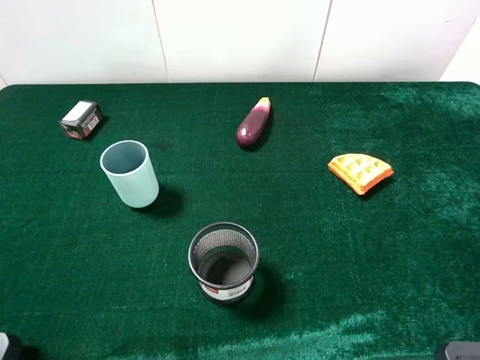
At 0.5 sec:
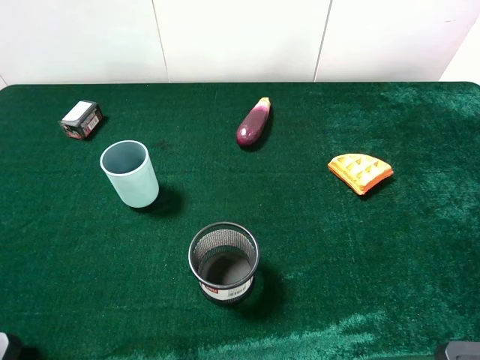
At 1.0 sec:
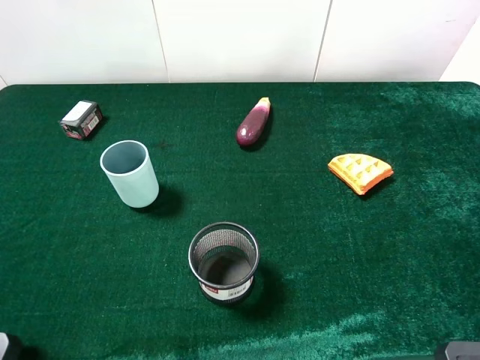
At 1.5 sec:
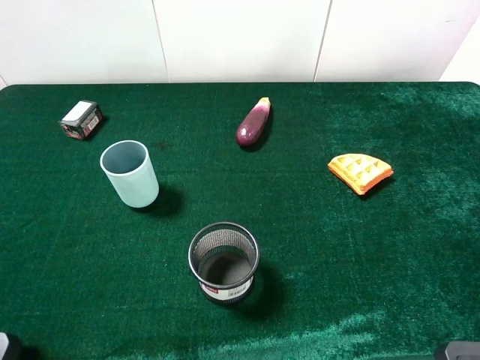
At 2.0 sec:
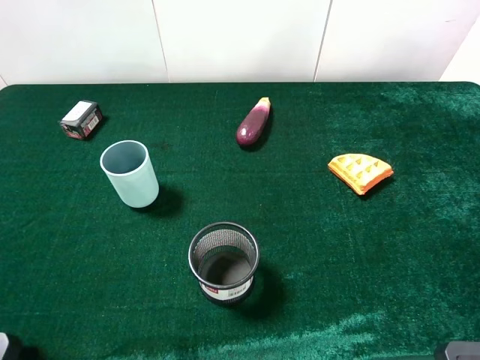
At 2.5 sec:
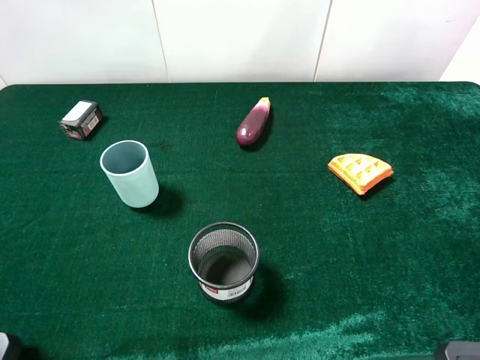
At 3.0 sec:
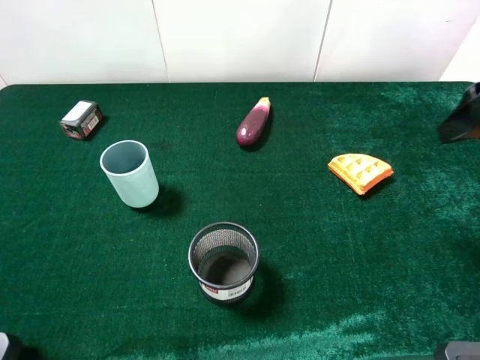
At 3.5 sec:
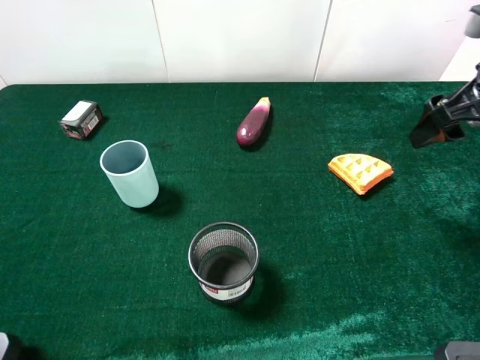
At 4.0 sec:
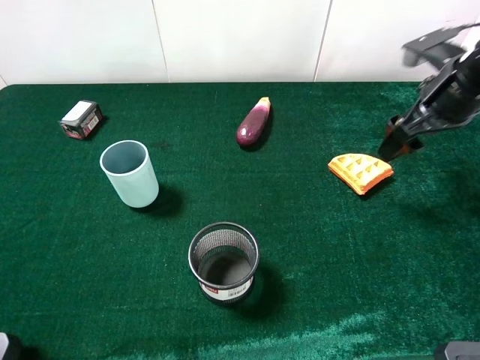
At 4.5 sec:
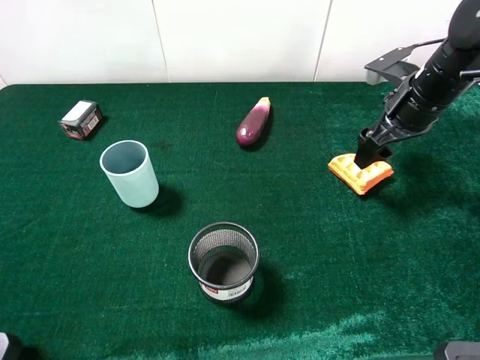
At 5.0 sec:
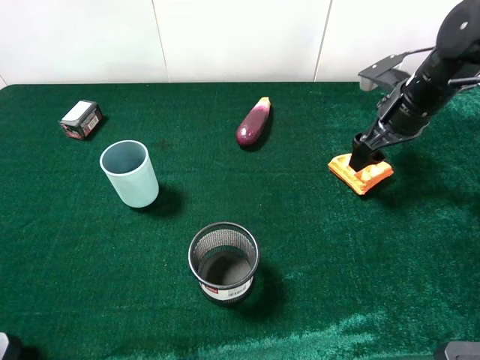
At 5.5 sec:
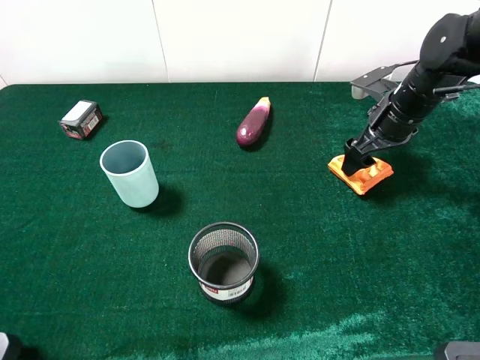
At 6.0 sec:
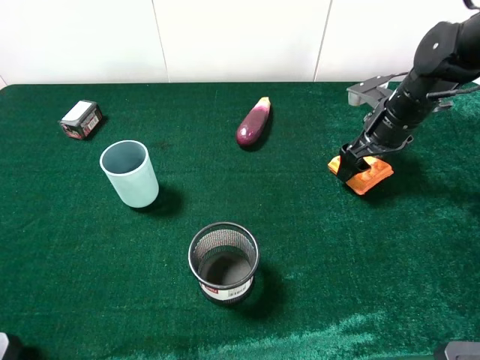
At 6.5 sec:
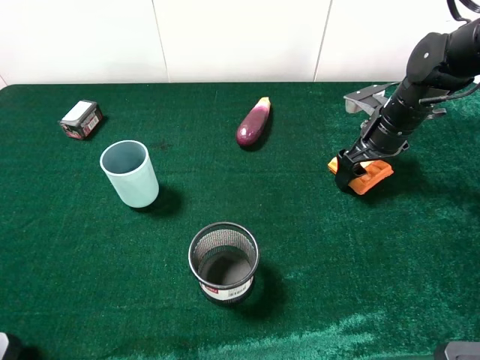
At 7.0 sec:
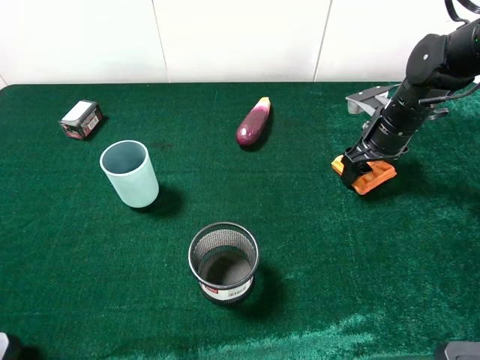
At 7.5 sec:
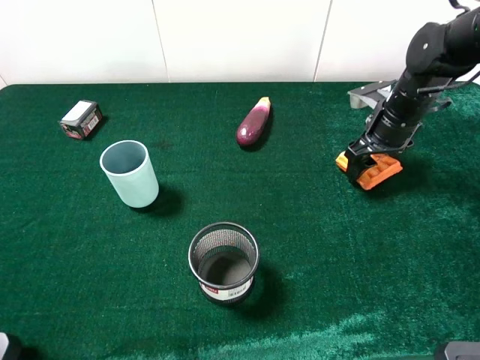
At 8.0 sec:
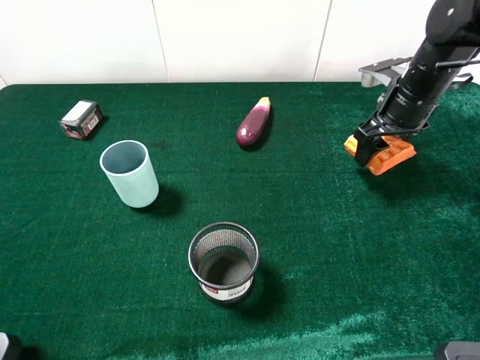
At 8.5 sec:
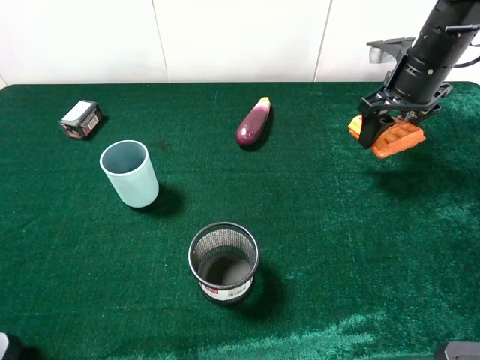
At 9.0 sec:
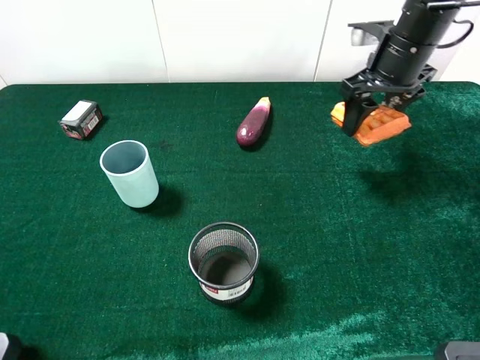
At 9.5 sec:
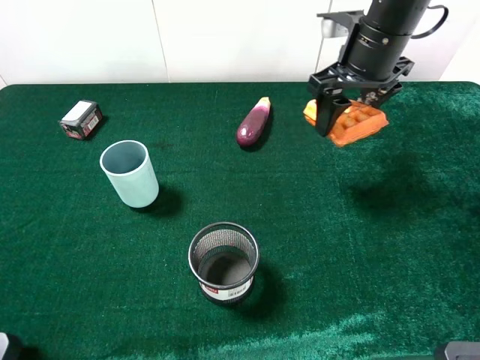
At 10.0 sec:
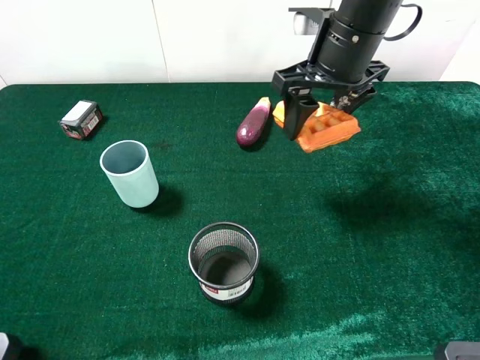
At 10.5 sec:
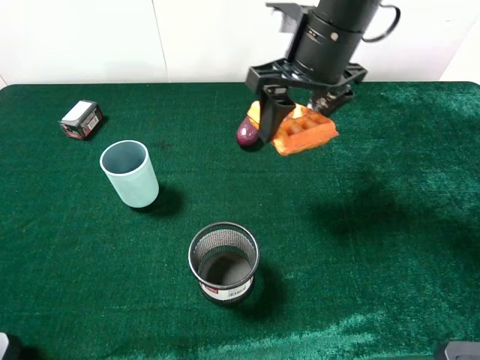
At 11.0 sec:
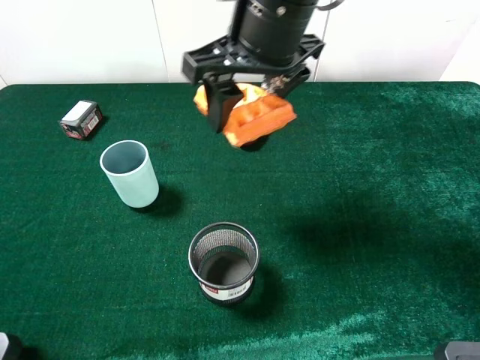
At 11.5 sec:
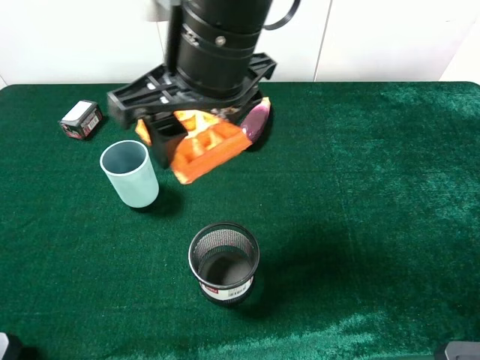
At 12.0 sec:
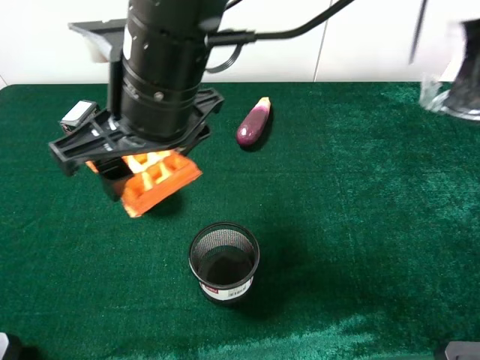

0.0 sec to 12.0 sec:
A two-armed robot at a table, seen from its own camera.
Task of the whole recording: the gripper move the object.
Step, 0.0 sec to 7.0 sec: Grasp the wallfe with the right gripper.
2.0 sec to 4.0 sec: The right gripper heads forward and downward, covering some 25 cm.
4.0 sec to 6.0 sec: The right gripper travels downward by about 10 cm.
6.0 sec to 8.0 sec: The right gripper closes up.
8.0 sec to 10.0 sec: The right gripper goes about 15 cm to the left and upward.
10.0 sec to 12.0 sec: The right gripper moves to the left and backward, roughly 20 cm.

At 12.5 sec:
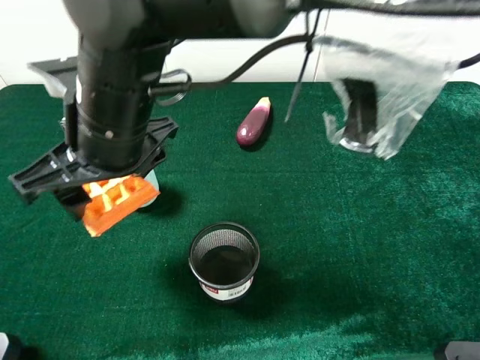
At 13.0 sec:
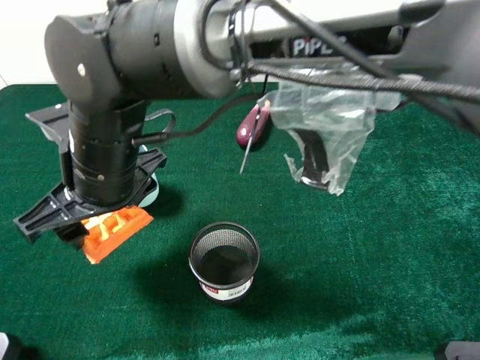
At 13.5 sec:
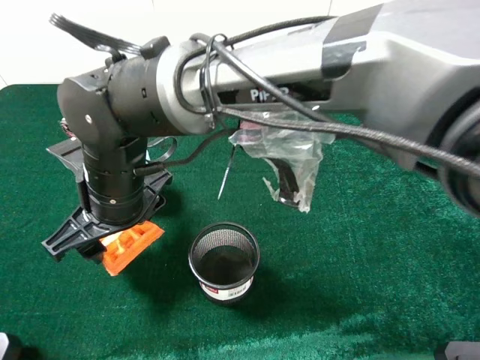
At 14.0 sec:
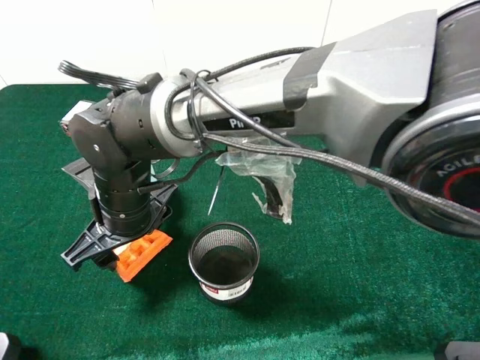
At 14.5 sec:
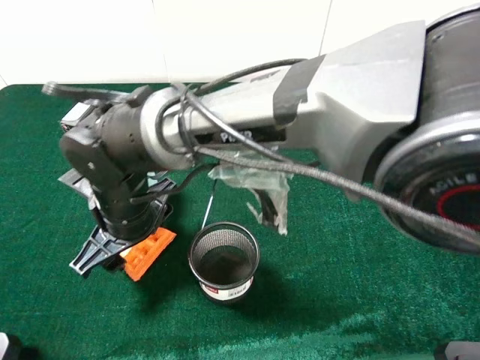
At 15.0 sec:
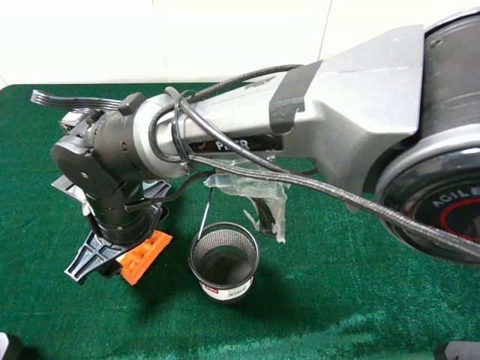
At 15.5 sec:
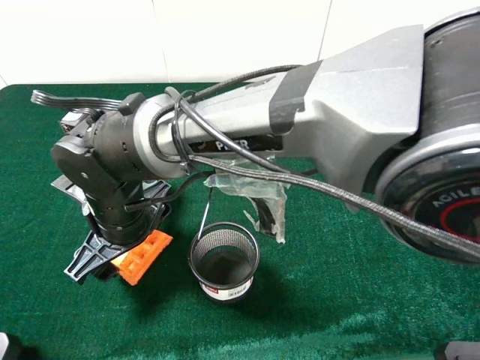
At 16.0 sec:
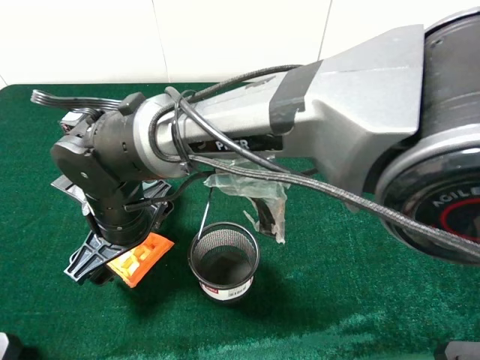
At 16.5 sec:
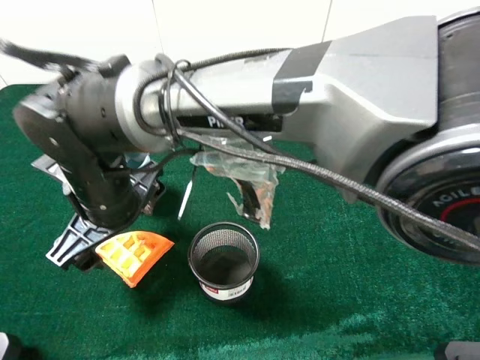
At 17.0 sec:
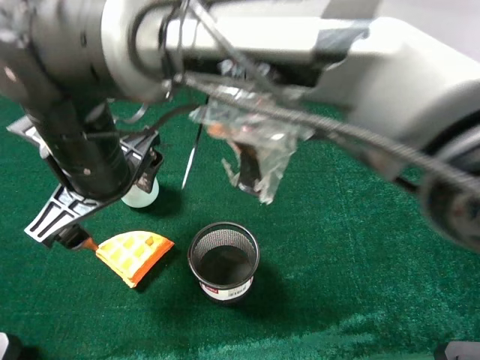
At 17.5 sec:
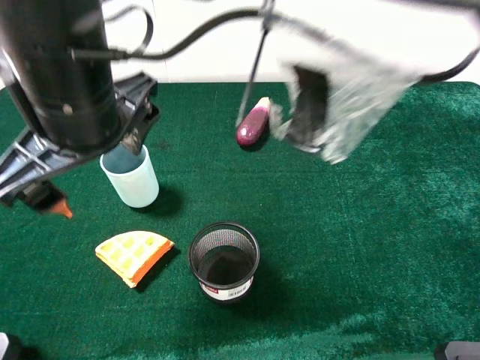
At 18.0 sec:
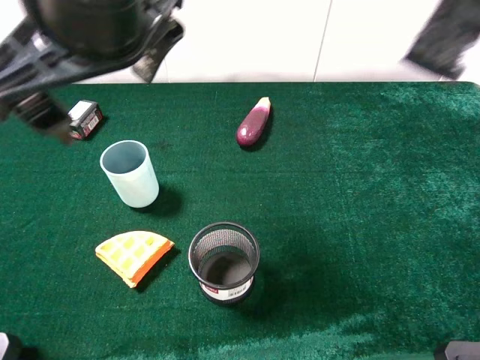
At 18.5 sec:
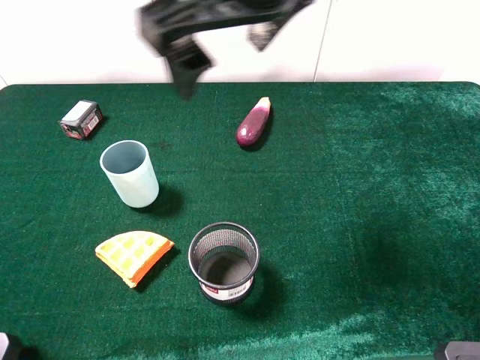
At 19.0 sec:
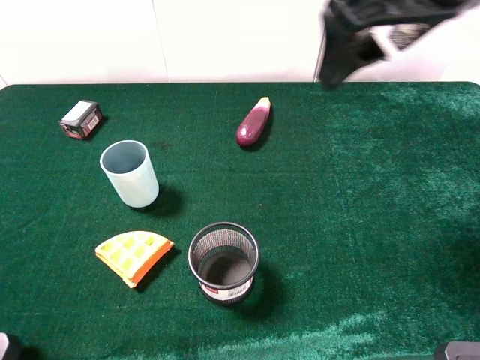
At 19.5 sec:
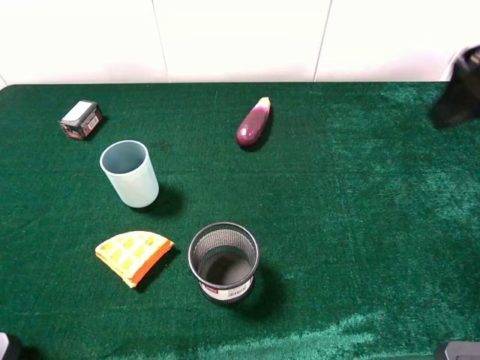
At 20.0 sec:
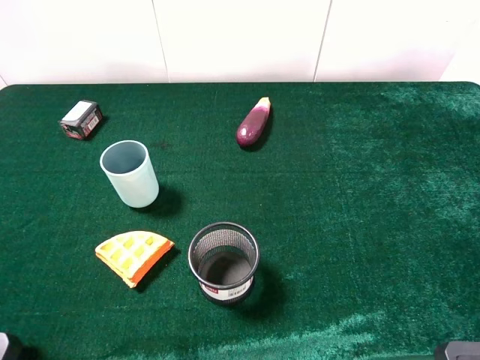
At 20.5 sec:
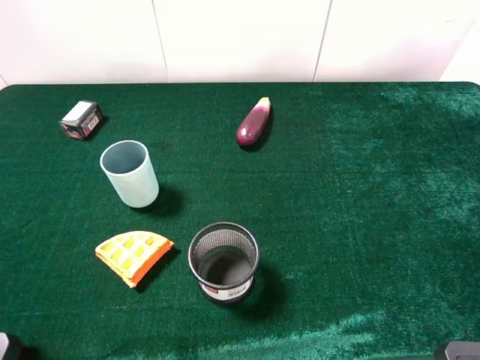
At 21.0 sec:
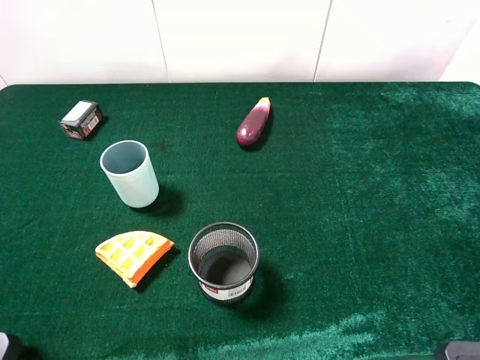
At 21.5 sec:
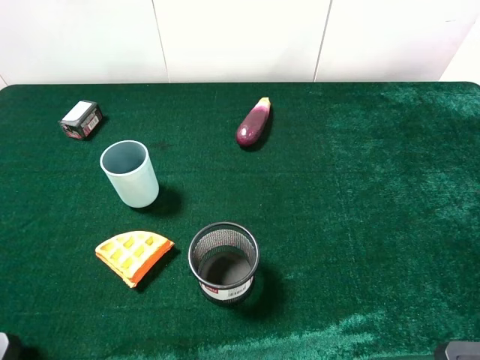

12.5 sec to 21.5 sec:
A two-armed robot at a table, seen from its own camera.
Task of the whole recording: the gripper move the object.
Step, 12.5 sec to 16.5 sec: Place the waffle on the table with the right gripper.
12.5 sec to 14.5 sec: The right gripper is displaced downward by about 10 cm.
14.5 sec to 17.0 sec: The right gripper travels upward by roughly 10 cm, and opens.
17.0 sec to 19.5 sec: The right gripper shifts roughly 40 cm to the right.
19.5 sec to 21.5 sec: The right gripper moves backward and to the right, some 20 cm.
